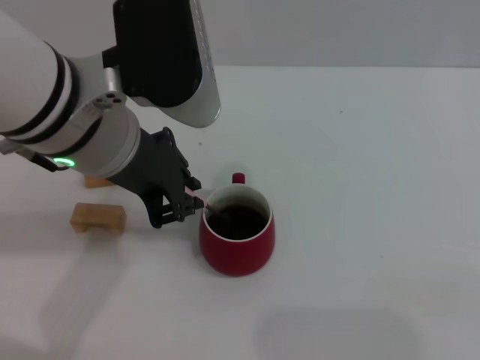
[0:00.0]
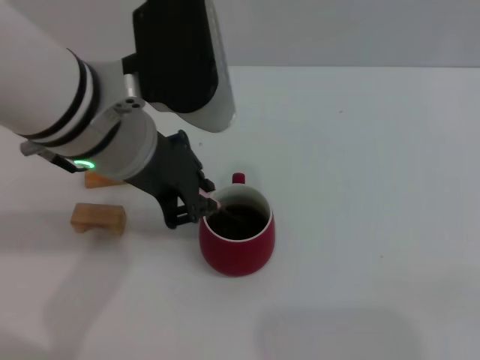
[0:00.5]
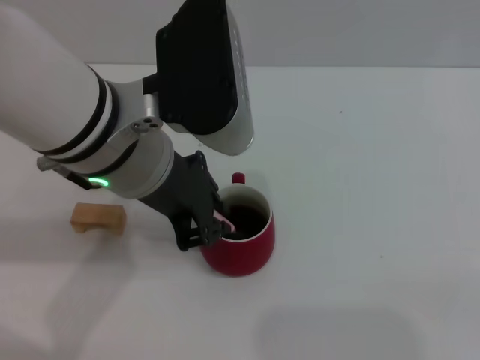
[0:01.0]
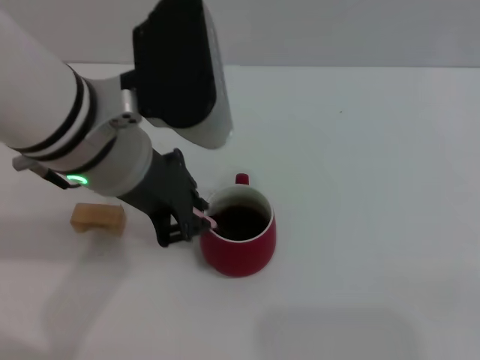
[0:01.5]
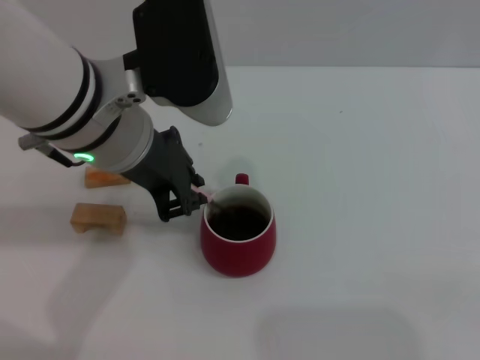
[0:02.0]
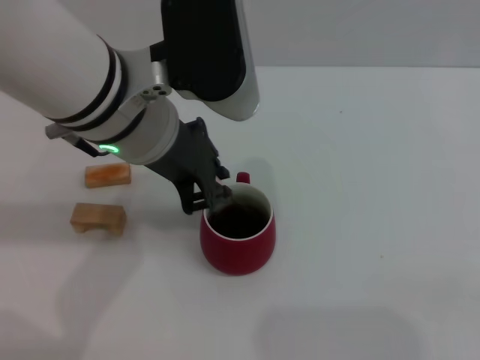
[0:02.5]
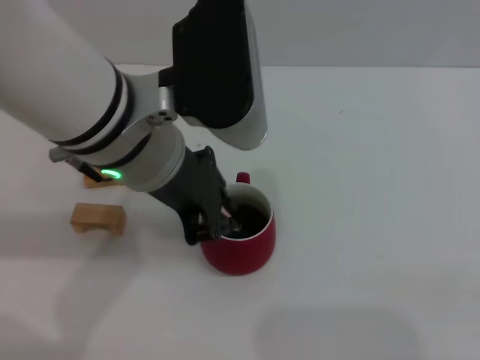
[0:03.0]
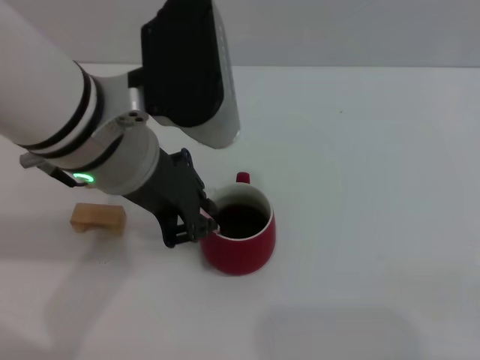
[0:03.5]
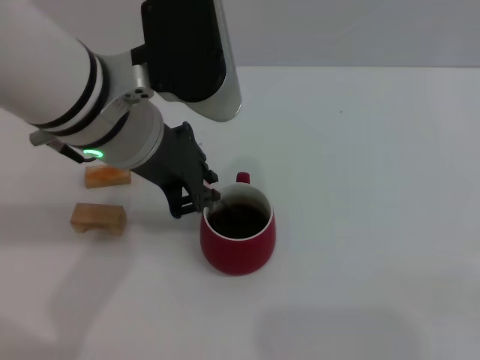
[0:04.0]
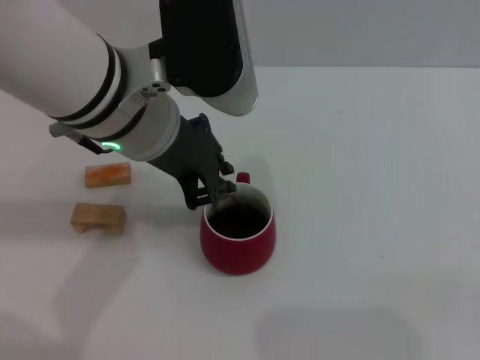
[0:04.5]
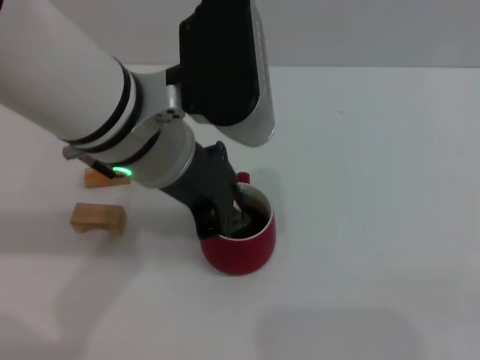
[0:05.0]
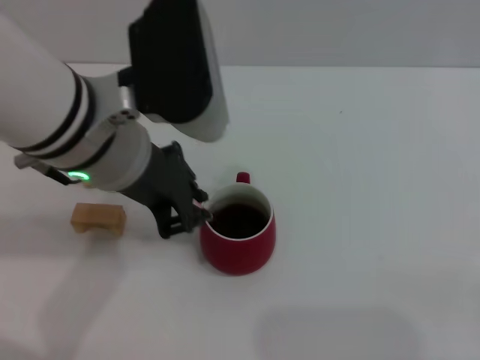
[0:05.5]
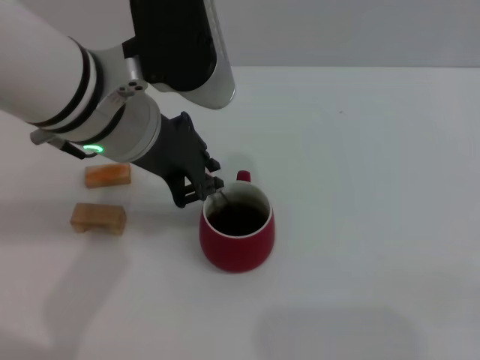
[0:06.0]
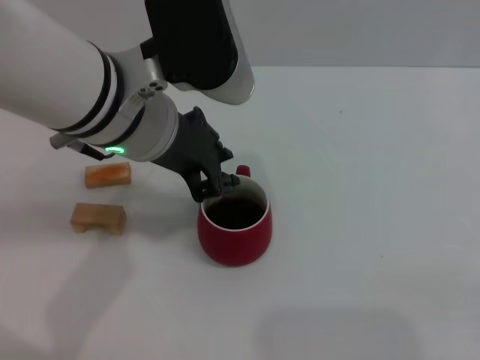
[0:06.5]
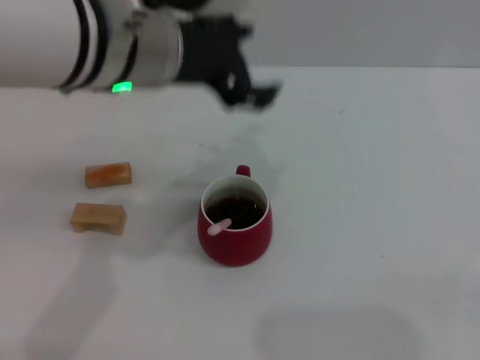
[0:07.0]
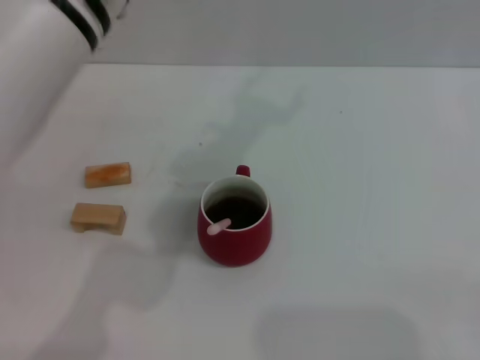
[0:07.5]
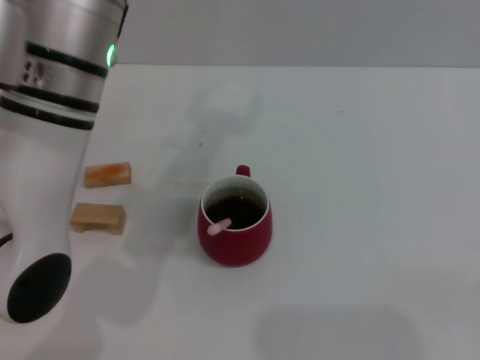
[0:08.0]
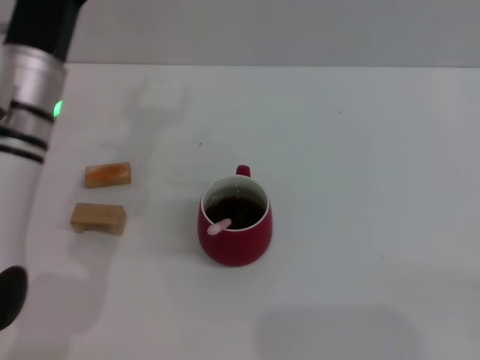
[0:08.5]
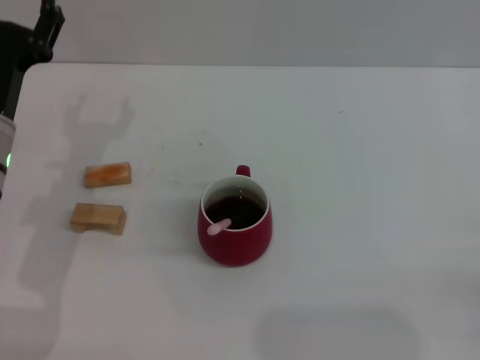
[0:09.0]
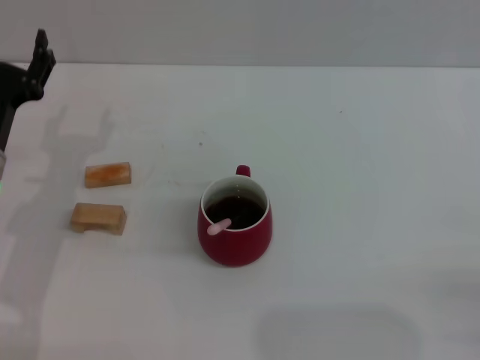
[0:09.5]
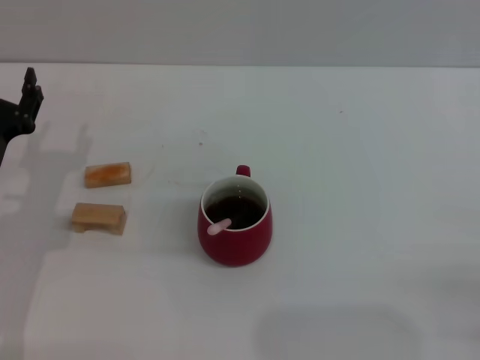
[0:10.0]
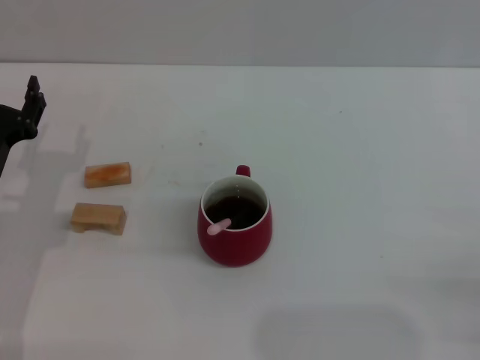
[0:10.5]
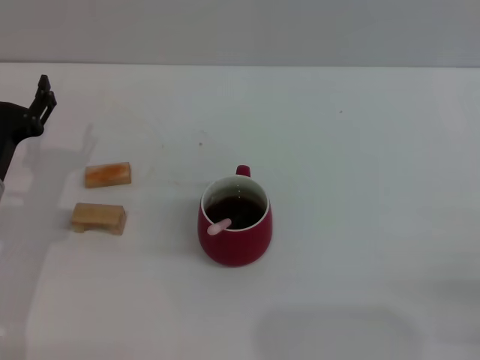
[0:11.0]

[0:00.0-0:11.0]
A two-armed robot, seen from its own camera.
Task of the whole recording: Move the red cup to the center, lift the pink spoon, stir it three times in the cup, and put the spoon into the cup.
Step, 0:00.0 to 0:06.5: Stir the coffee in the cup with the left gripper.
0:00.0 to 0:05.5: The grippers make only small movements.
0:05.5 to 0:07.5: The left gripper shifts roughly 5 cm upward, and opens up.
0:07.5 to 0:09.0: The left gripper heads downward and to the left, covering some 25 cm.
0:09.0 to 0:11.0: The left gripper goes about 5 cm downward.

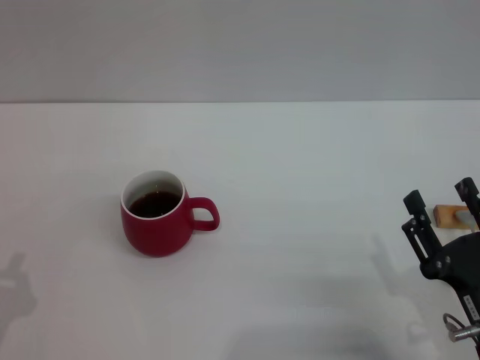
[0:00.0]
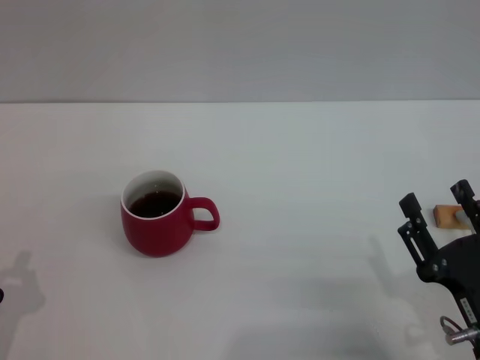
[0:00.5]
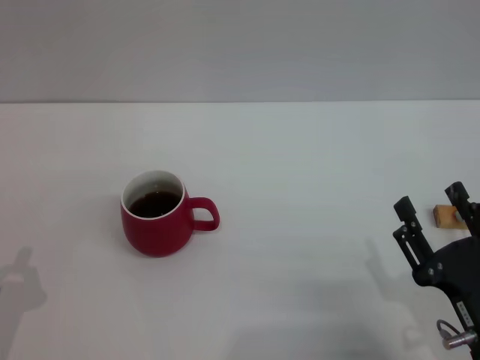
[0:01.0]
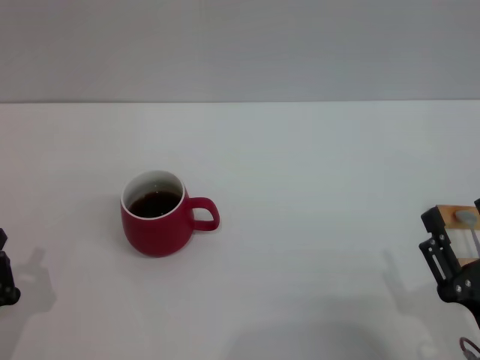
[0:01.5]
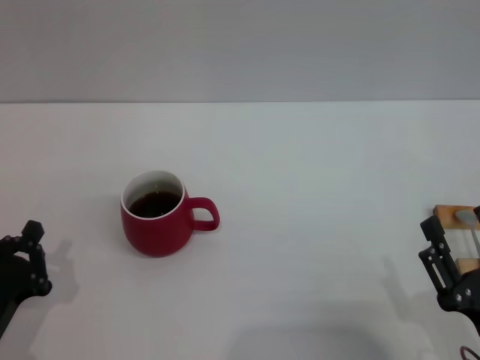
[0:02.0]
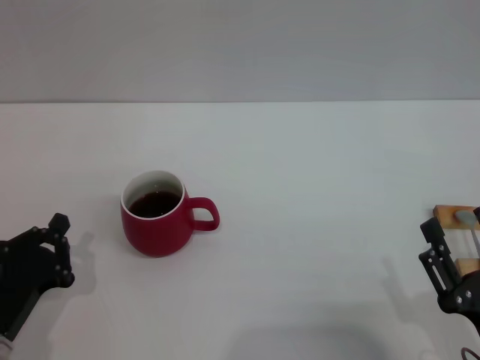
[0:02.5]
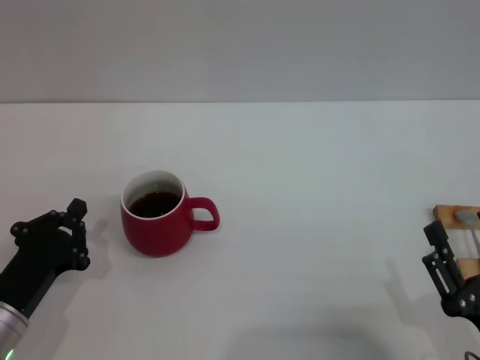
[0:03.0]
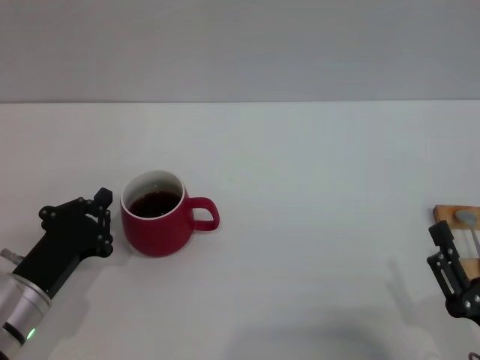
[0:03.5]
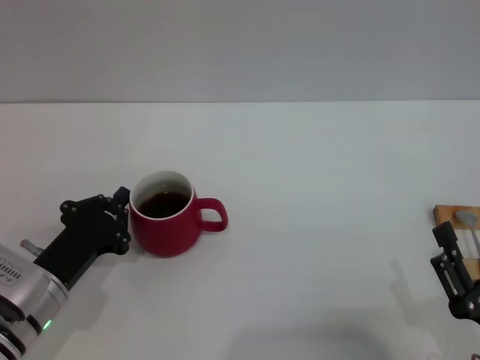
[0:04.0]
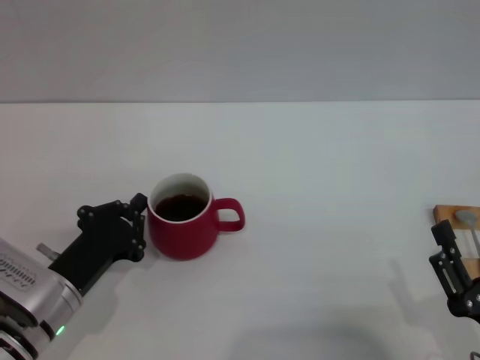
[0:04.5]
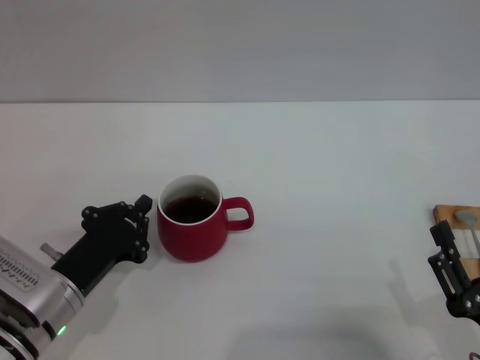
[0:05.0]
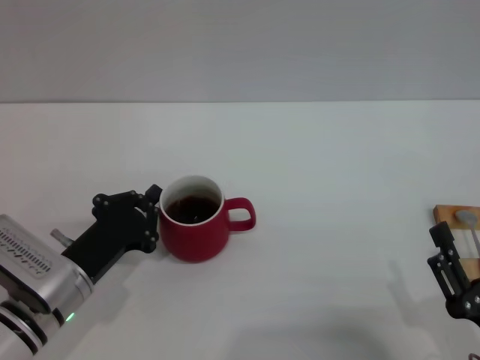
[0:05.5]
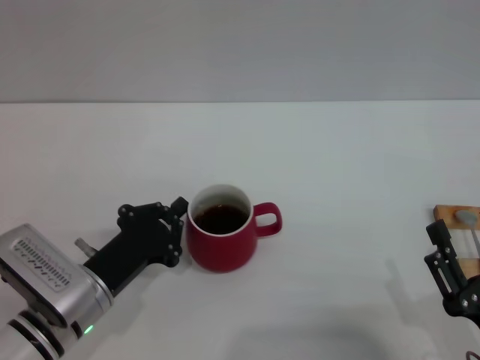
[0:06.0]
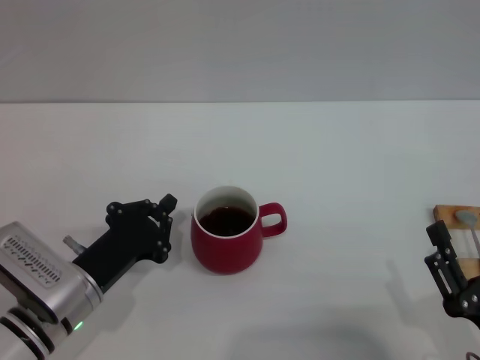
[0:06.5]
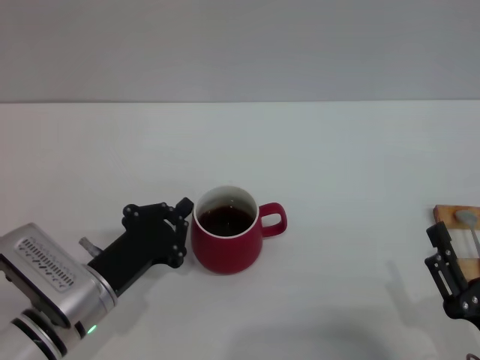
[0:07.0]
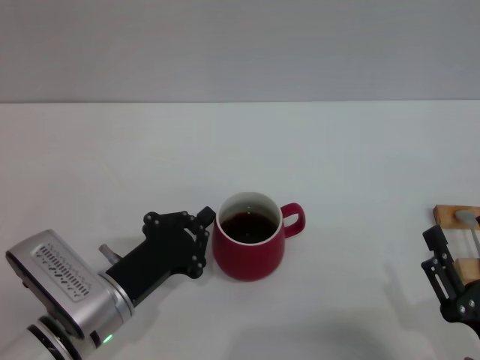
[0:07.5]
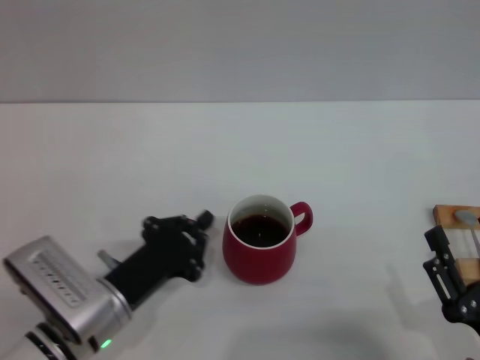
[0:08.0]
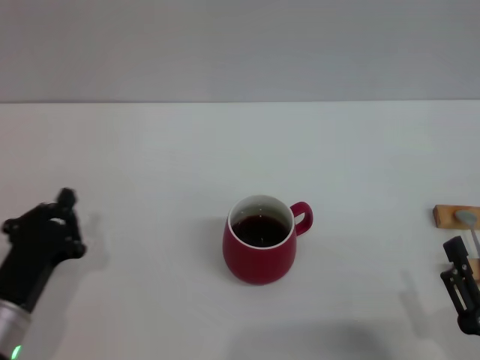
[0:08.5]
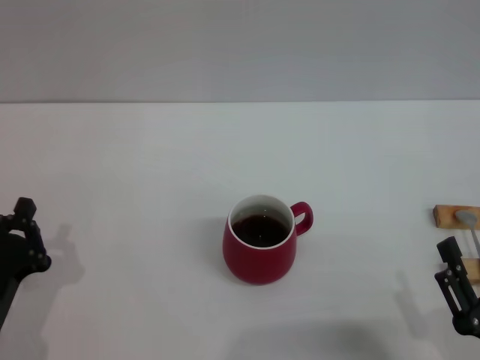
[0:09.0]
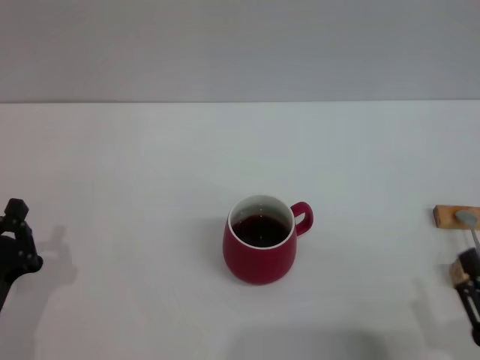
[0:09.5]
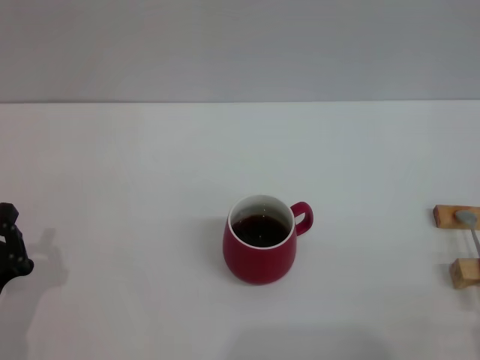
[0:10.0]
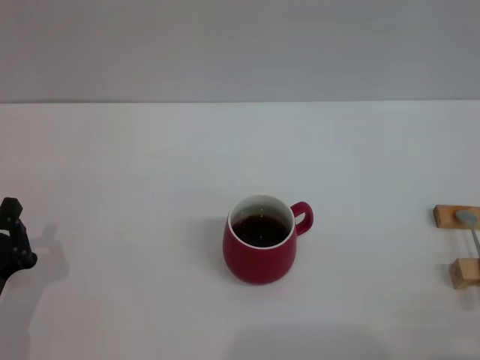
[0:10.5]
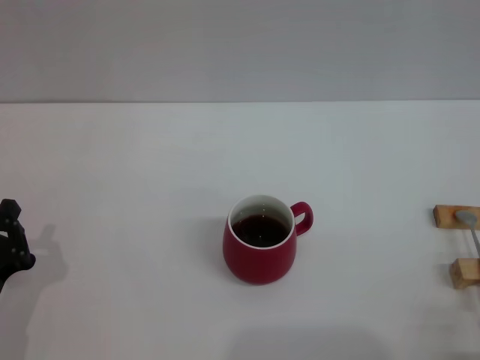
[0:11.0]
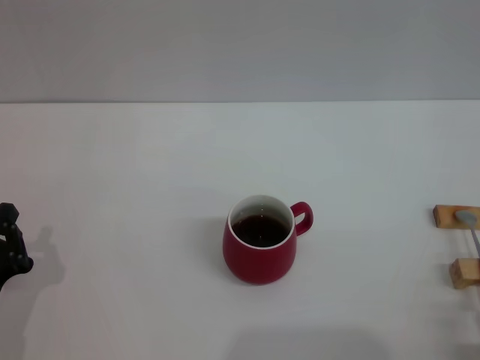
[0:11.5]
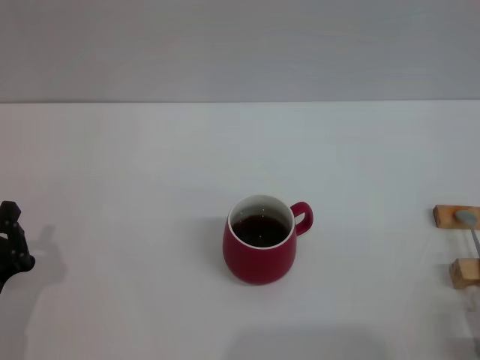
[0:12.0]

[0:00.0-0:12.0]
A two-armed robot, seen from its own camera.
Task of the whole recording: Move the red cup to the center, lift the pink spoon, stir it three times in the cup, and put the spoon into the cup.
Step, 0:00.0 to 0:08.0: Move the cup with coffee to the center of view with the left gripper.
0:00.0 to 0:02.0: The left gripper opens and closes again.
0:02.0 to 0:04.0: The left gripper is displaced forward by some 10 cm.
0:04.0 to 0:06.0: The grippers move only a little.
0:06.0 to 0:08.0: The grippers stay close to where they were, moving slightly.
0:08.0 to 0:10.0: The right gripper is displaced backward by roughly 5 cm, while the left gripper is displaced to the left and backward by approximately 10 cm.
0:10.0 to 0:12.0: The right gripper moves approximately 5 cm.

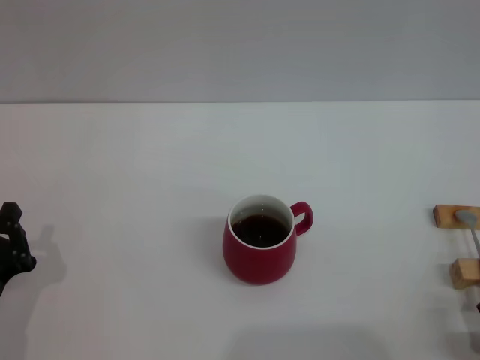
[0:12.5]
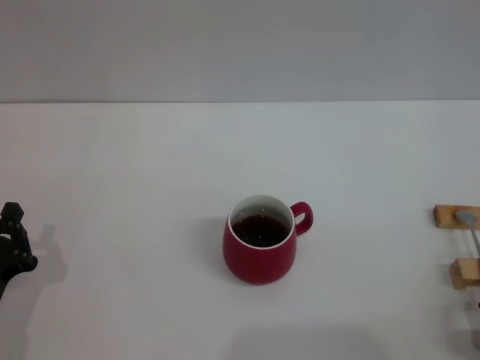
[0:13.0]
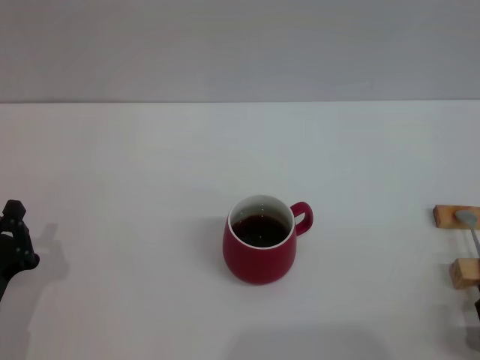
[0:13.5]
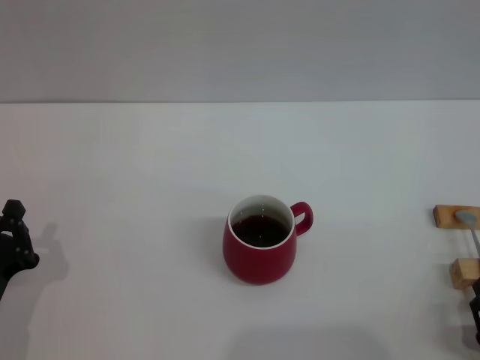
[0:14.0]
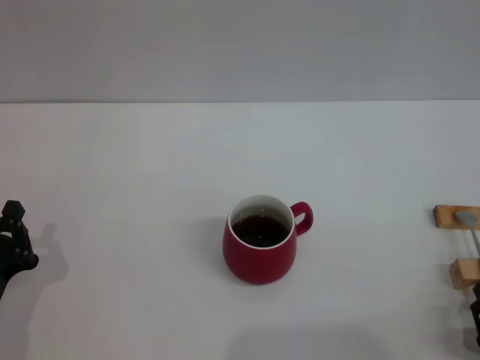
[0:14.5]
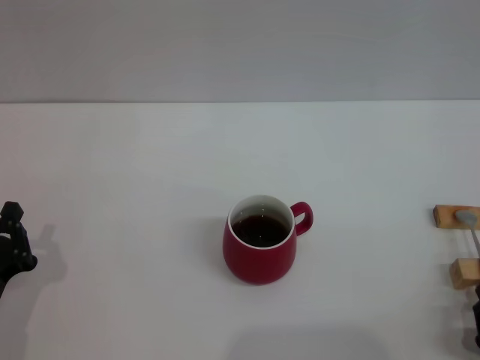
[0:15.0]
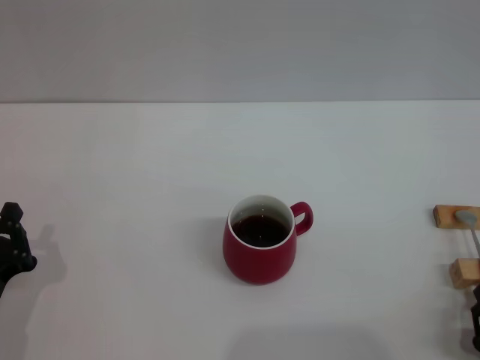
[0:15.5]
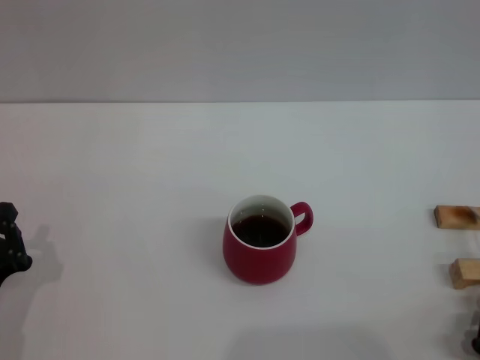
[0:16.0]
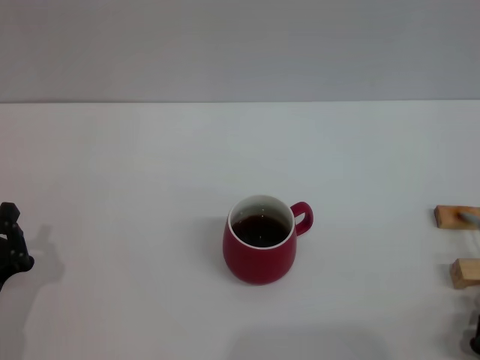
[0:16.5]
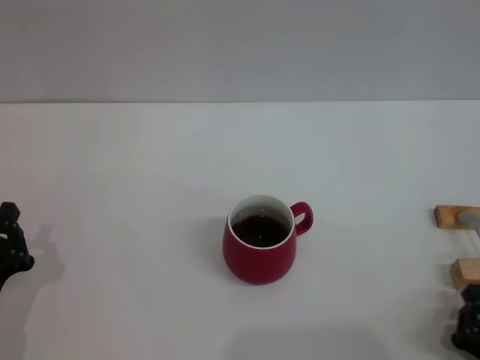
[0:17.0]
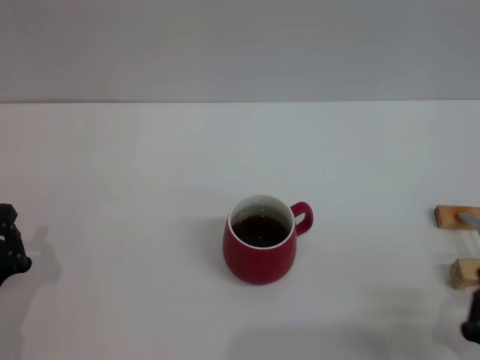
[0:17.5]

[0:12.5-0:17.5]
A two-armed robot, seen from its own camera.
Task of the whole recording: Move the red cup to the center, lift the pink spoon, stir it three times in the cup, and put the spoon into the cup.
0:15.0 to 0:17.5: The right gripper closes up.
